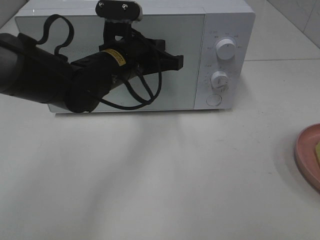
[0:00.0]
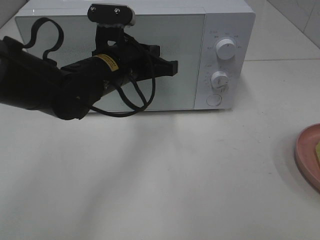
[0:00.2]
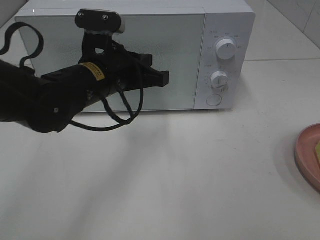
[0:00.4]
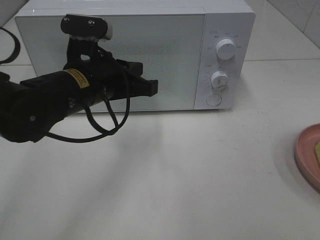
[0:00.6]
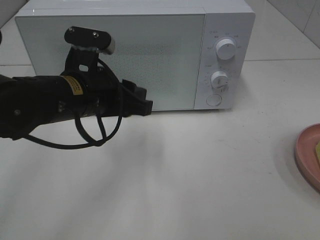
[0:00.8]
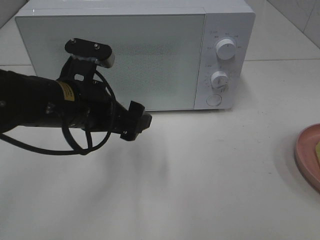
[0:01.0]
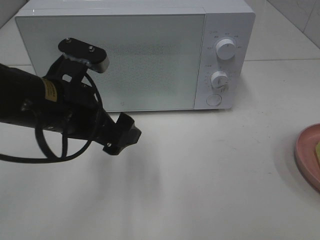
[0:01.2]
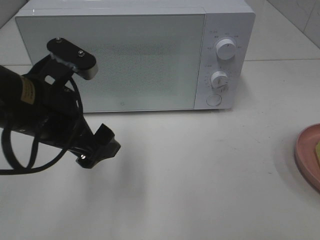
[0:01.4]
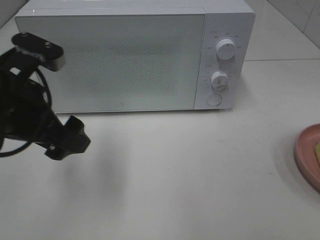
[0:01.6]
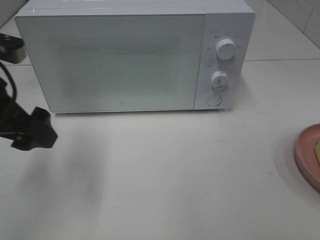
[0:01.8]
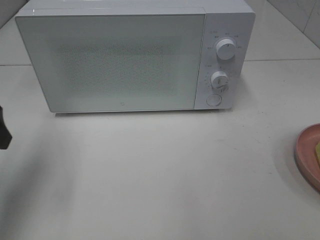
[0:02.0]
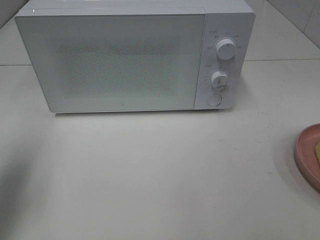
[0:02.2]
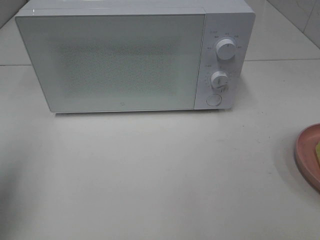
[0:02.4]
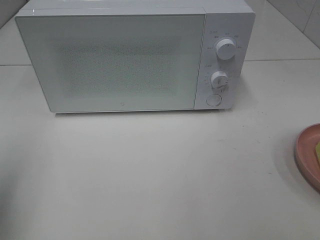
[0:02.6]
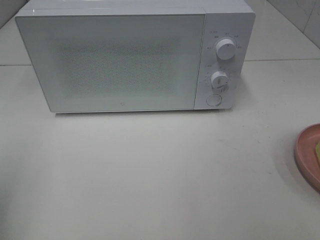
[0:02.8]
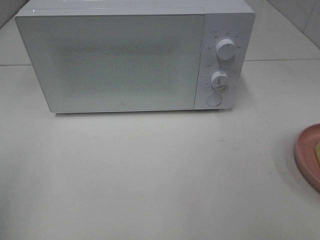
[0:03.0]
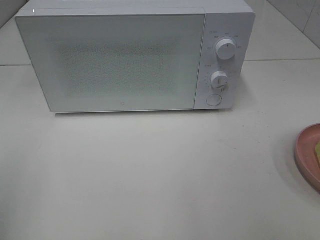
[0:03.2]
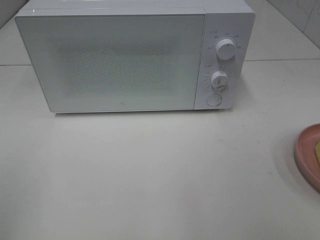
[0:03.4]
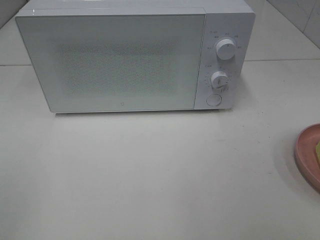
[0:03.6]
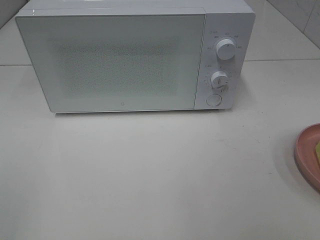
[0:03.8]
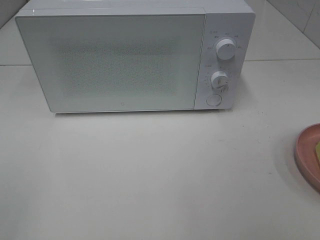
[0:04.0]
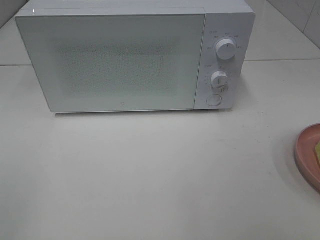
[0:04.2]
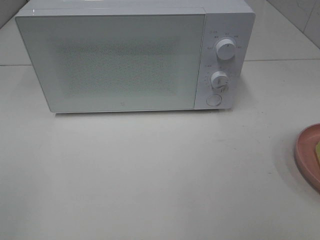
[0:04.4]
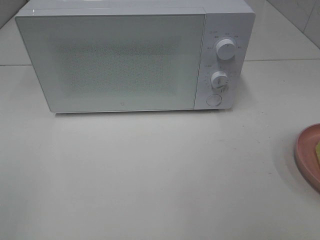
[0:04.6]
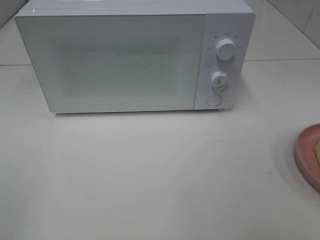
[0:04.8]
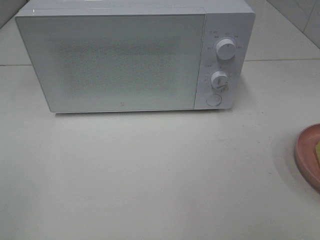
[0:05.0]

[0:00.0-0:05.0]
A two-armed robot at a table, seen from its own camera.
Task of the whole recording: Heat Sandwich.
0:00.0 to 0:01.6: The left gripper goes roughly 15 cm to the left and backward, and opens.
0:01.6 to 0:03.4: The left gripper goes approximately 25 cm backward and to the left.

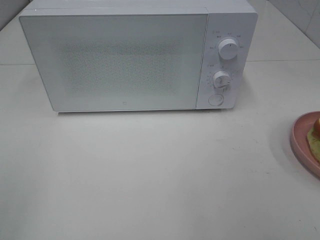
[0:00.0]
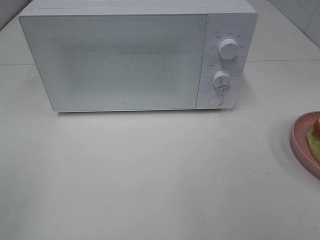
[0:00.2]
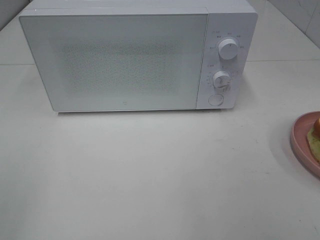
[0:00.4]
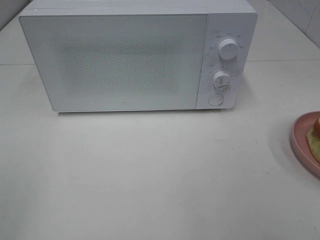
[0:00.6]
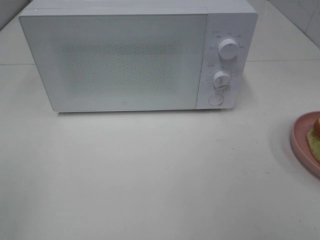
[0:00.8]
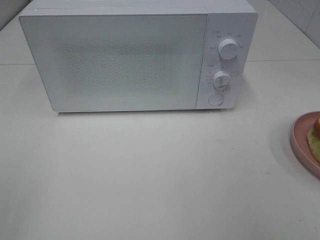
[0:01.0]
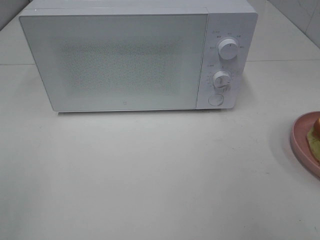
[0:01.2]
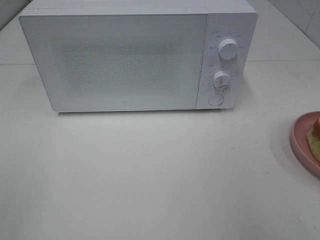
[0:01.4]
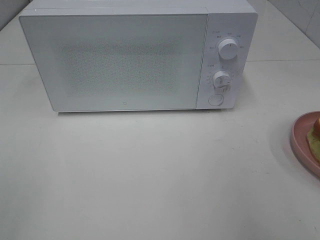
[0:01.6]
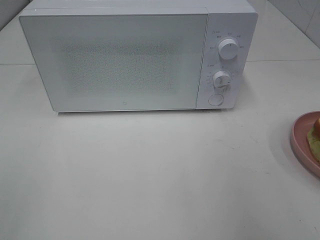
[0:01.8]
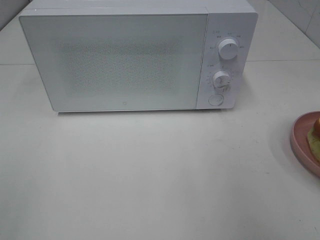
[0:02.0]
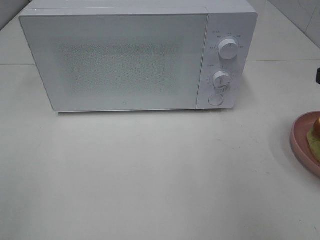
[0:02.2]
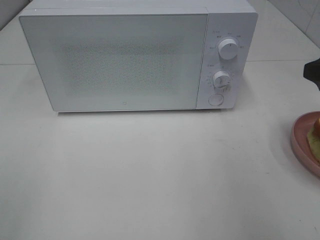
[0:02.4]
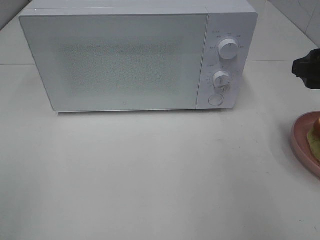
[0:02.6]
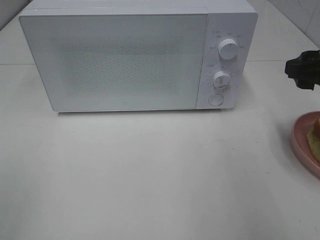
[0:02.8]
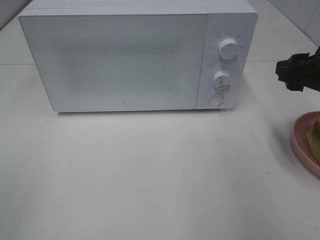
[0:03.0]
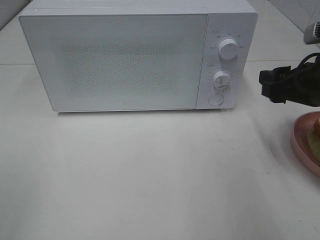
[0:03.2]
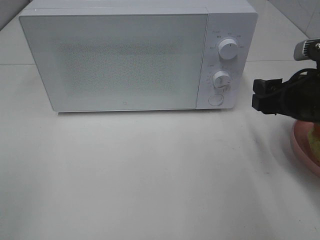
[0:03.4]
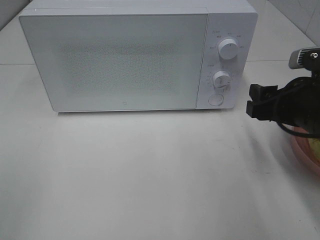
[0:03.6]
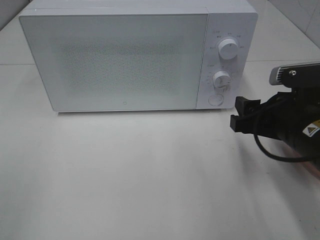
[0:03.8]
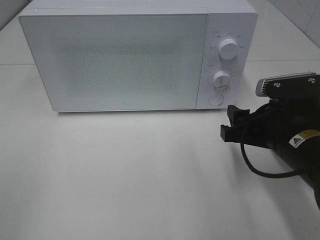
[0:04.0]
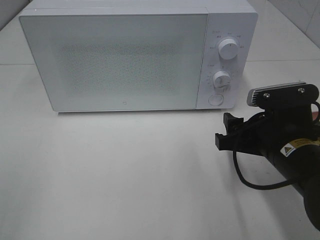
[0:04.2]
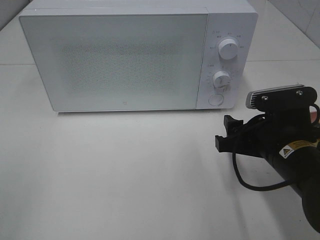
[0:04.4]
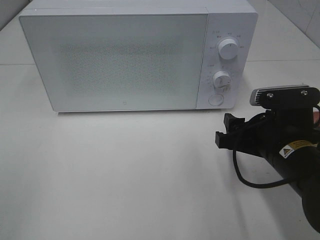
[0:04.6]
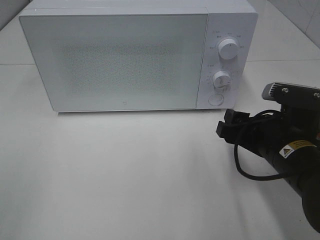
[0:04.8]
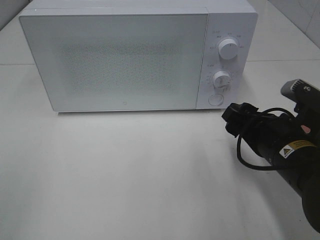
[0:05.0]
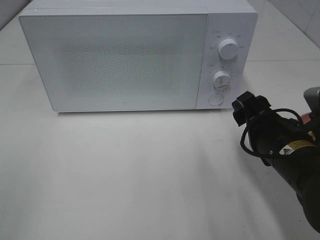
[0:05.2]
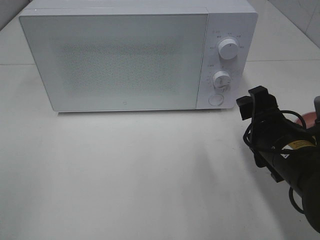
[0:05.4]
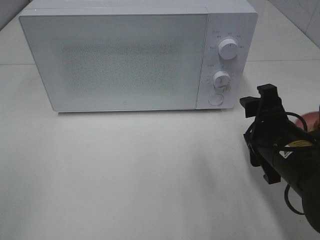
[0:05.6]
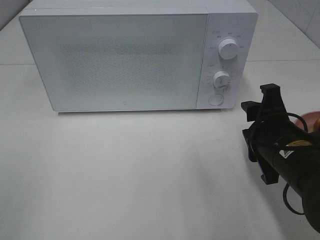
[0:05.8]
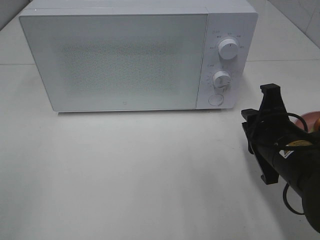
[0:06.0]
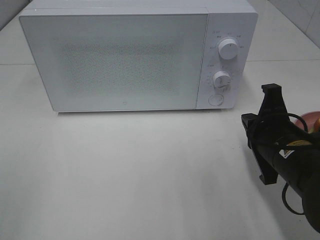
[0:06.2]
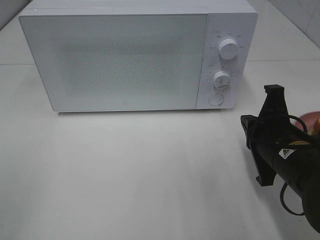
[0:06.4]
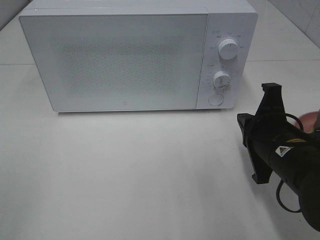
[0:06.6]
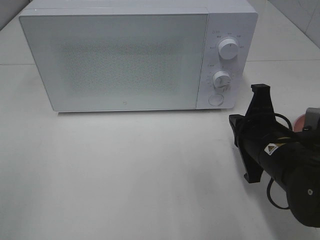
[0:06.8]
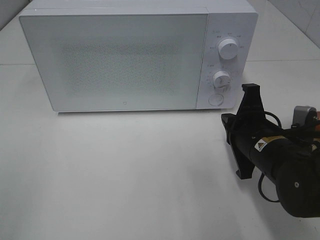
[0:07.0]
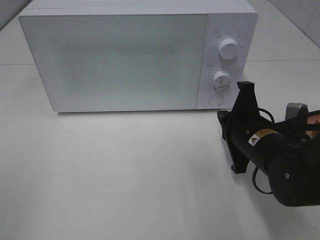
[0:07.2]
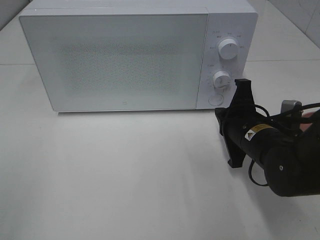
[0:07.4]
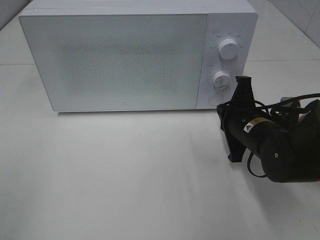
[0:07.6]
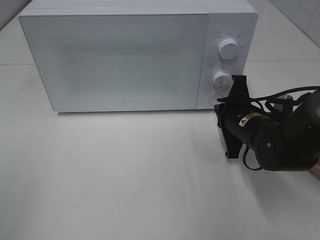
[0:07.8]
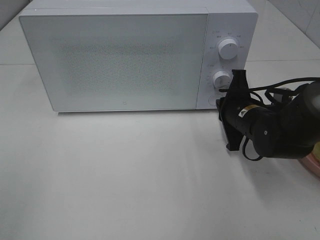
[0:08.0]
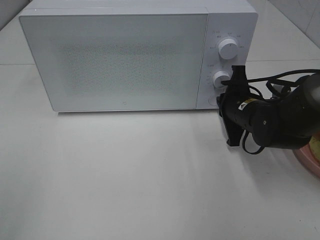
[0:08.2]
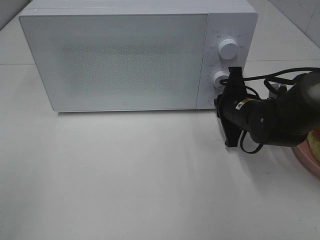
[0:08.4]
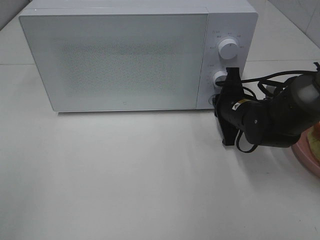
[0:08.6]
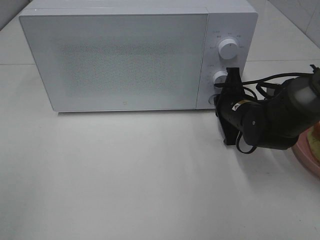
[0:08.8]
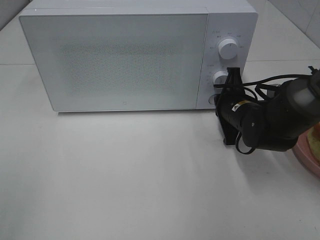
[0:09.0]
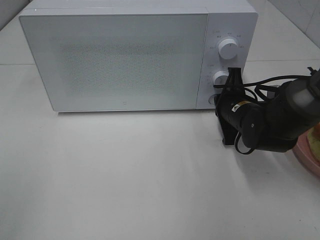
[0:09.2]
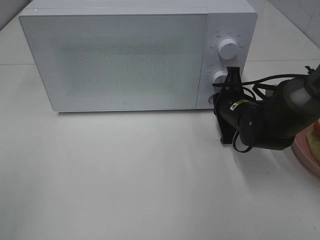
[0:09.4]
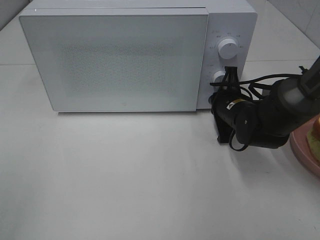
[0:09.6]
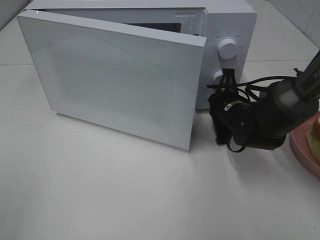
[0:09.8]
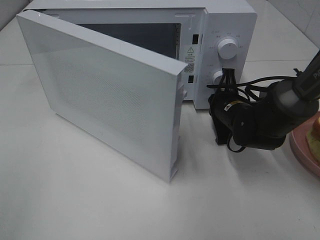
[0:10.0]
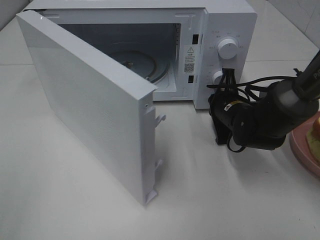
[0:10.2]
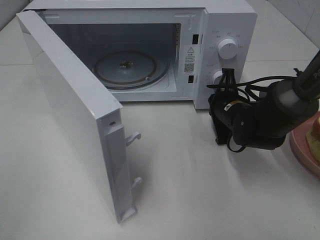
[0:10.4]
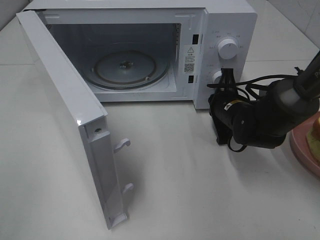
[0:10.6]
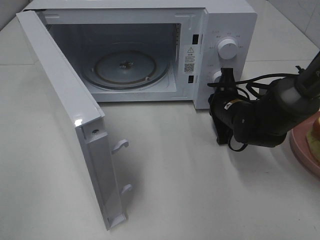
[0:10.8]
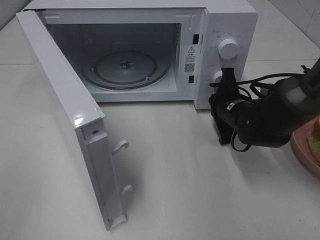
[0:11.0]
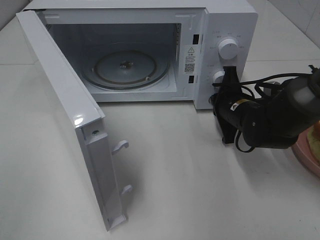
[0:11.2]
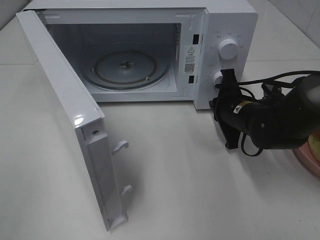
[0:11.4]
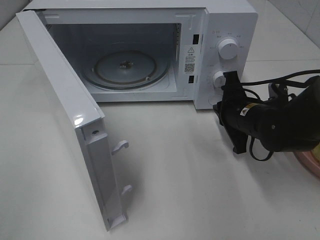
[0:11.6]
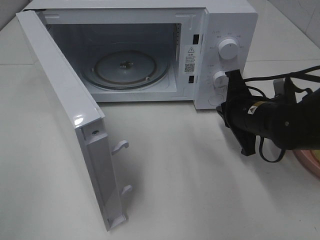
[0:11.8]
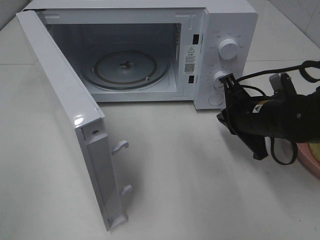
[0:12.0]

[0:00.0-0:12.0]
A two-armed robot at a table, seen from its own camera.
Task of the whole recording: Heat Sandwich.
Step, 0:00.0 to 0:11.6: Right hand: press the switch.
0:01.6 to 0:03.0: The right gripper goes roughly 15 cm forward and downward.
0:03.0 to 0:04.4: The right gripper goes approximately 10 cm downward and to the left.
0:04.4 to 0:06.0: The right gripper closes its fingers.
0:06.0 to 0:07.6: The right gripper heads forward, covering about 5 cm.
0:07.6 to 0:09.0: The right gripper heads forward, covering some 5 cm.
0:10.4 to 0:12.0: The right gripper goes roughly 10 cm backward and upward.

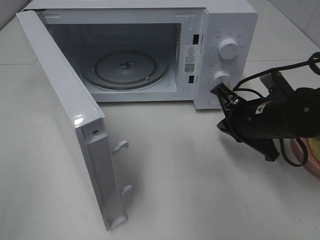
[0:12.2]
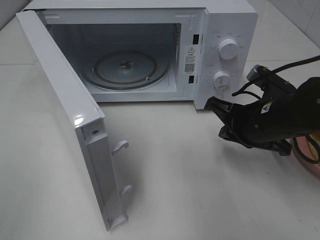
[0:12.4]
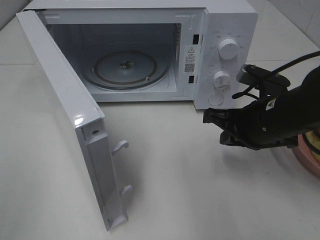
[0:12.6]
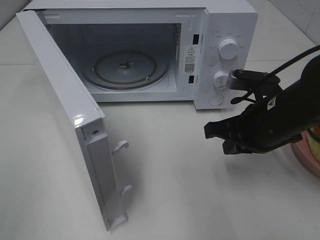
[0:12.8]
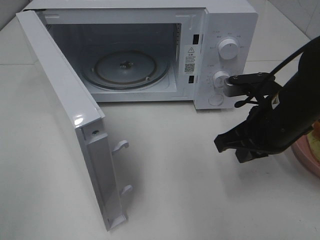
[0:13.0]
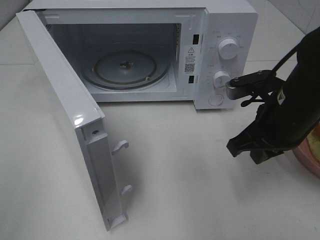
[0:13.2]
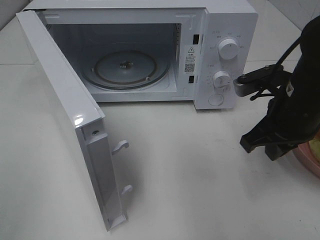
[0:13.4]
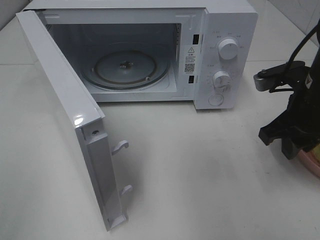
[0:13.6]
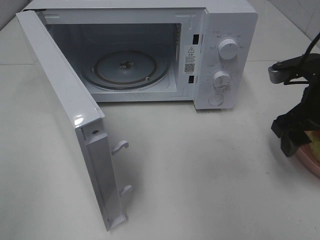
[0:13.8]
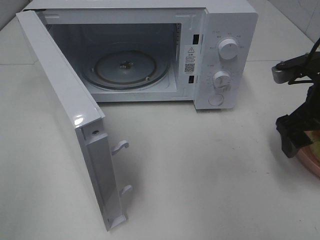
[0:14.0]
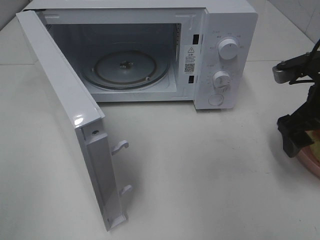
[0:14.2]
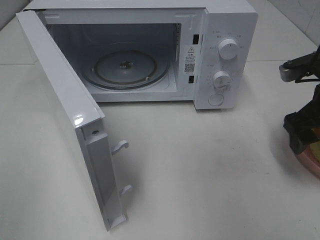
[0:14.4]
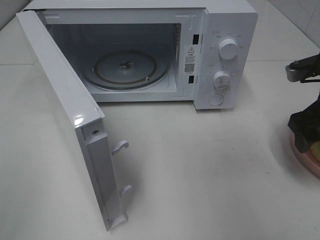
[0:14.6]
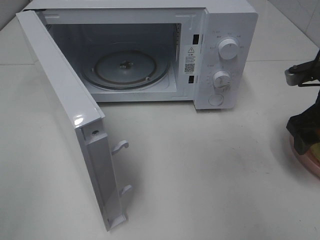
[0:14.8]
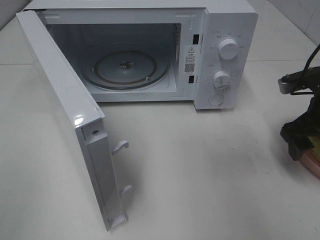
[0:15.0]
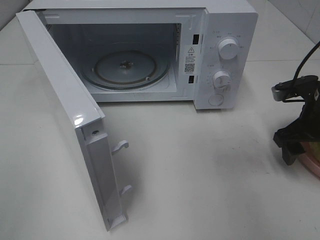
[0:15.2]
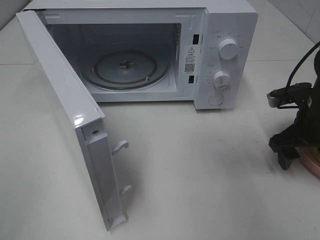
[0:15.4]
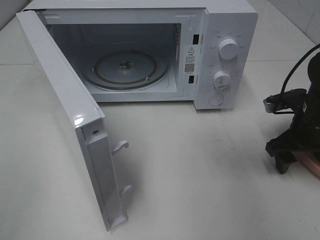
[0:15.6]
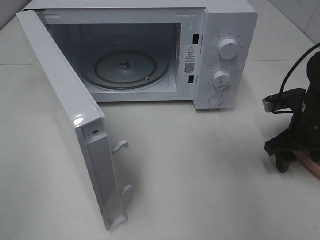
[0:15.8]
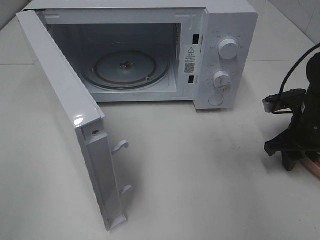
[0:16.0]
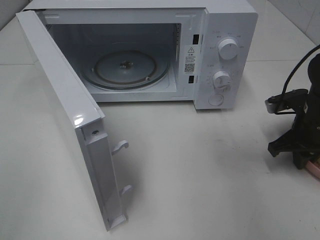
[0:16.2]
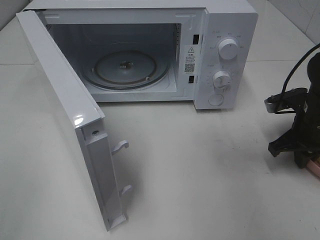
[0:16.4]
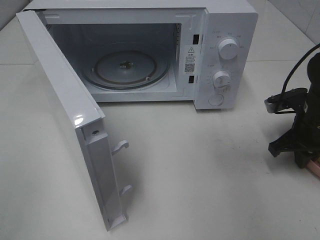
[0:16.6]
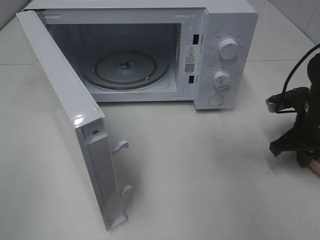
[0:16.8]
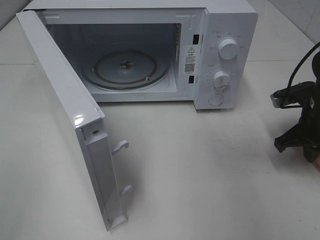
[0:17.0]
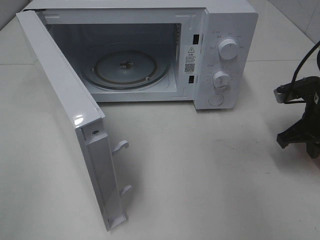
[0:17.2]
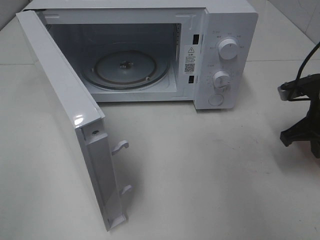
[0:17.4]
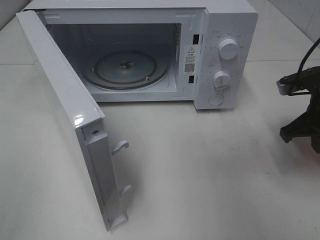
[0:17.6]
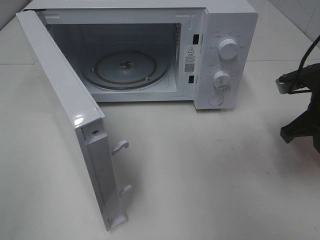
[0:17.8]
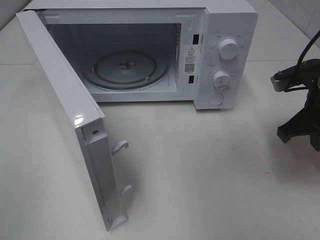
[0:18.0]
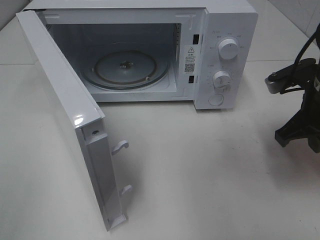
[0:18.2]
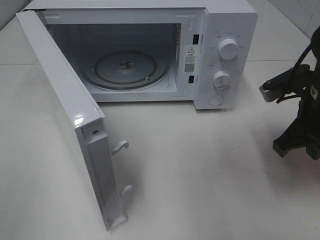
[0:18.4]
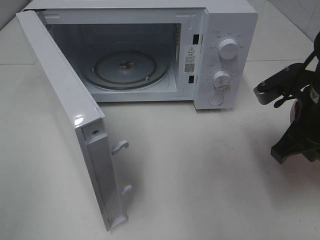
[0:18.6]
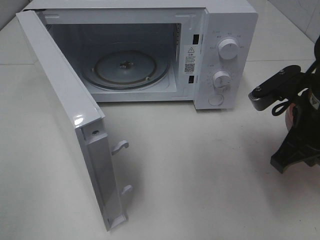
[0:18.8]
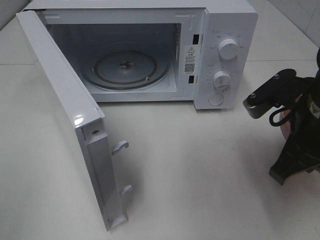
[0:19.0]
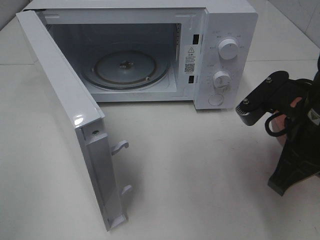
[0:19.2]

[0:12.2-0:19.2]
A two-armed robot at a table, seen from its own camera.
Task of the whole recording: Heat Sandwich.
Step, 0:12.2 to 0:16.4: Right hand: grab the plate with the sandwich.
0:12.2 to 0:13.6: The right gripper heads upward, covering approximately 5 cm.
0:13.6 to 0:15.0: The right gripper is displaced to the right by approximately 5 cm, and opens.
0:15.0 to 0:16.4: The right gripper heads downward, covering roughly 5 cm, and closes its fingers.
0:16.4 to 0:17.8: The right gripper moves upward, approximately 5 cm.
0:17.8 to 0:19.2: The right gripper is displaced backward and to the left by some 15 cm.
